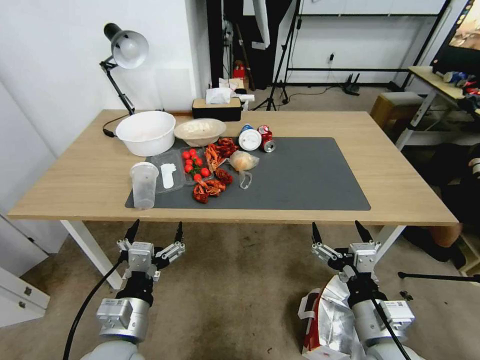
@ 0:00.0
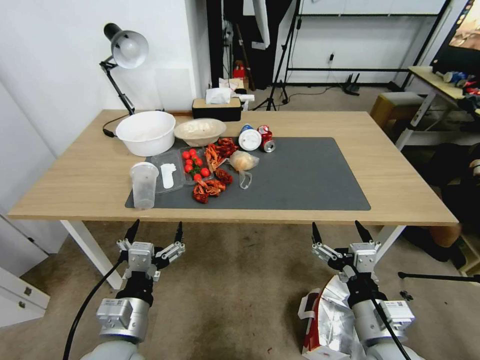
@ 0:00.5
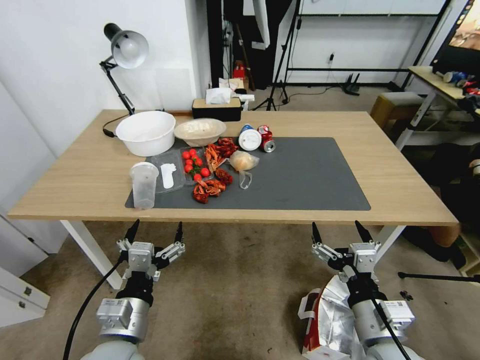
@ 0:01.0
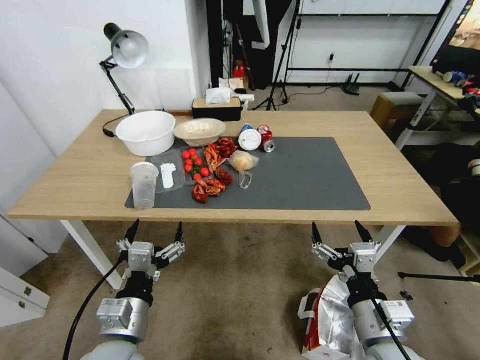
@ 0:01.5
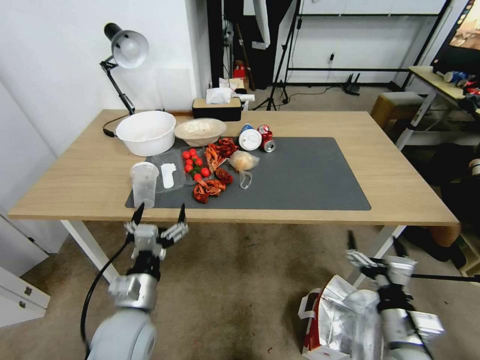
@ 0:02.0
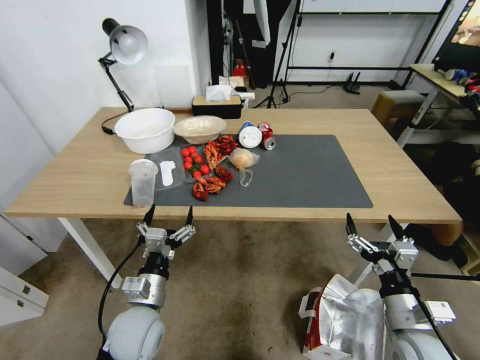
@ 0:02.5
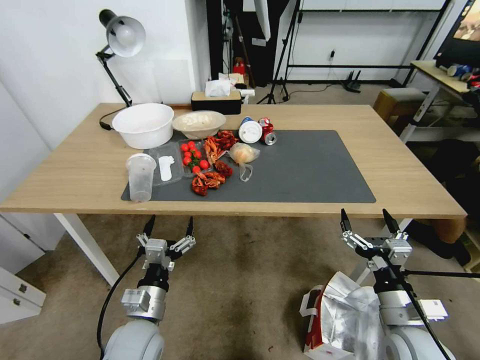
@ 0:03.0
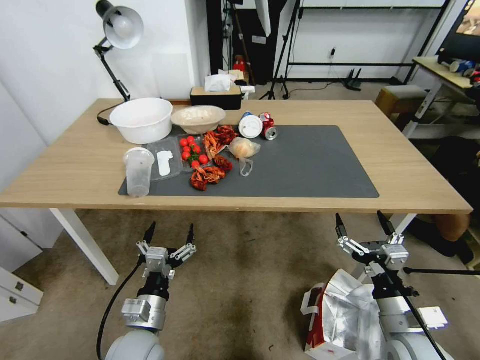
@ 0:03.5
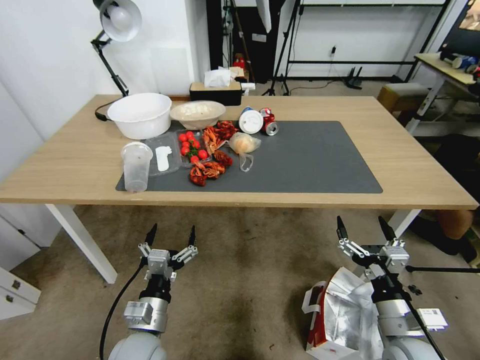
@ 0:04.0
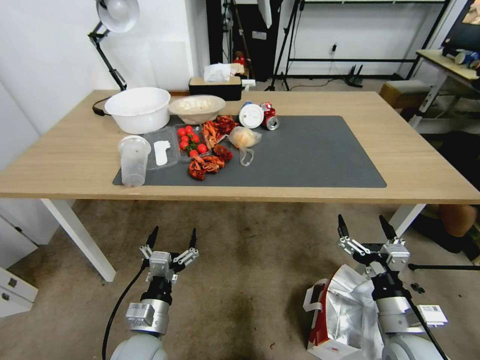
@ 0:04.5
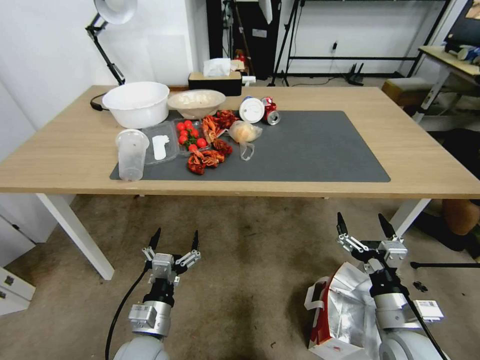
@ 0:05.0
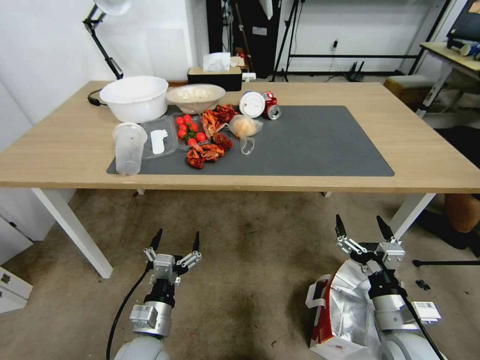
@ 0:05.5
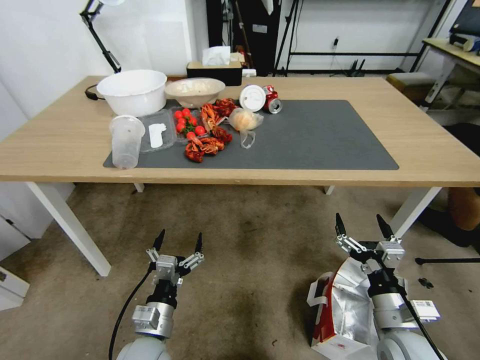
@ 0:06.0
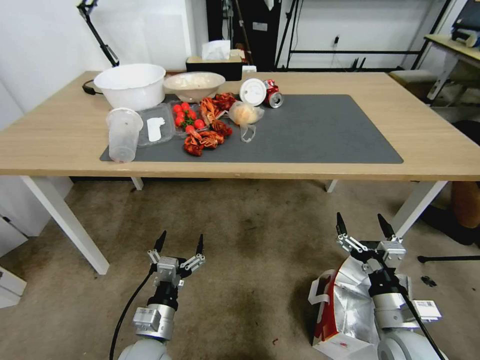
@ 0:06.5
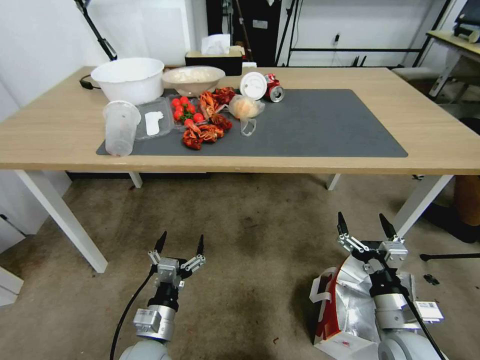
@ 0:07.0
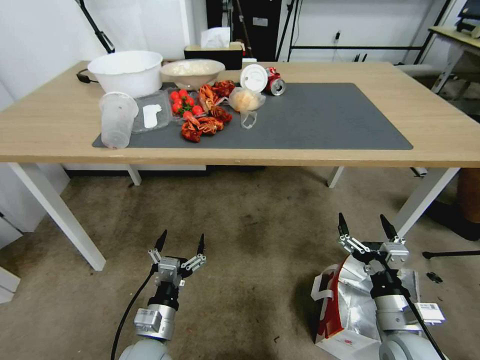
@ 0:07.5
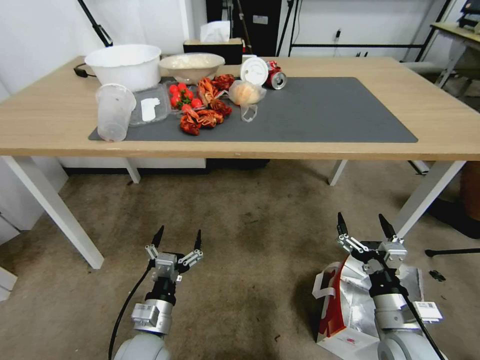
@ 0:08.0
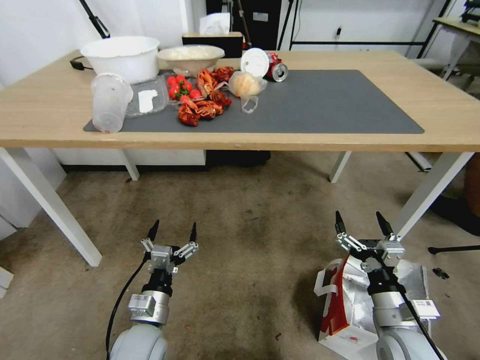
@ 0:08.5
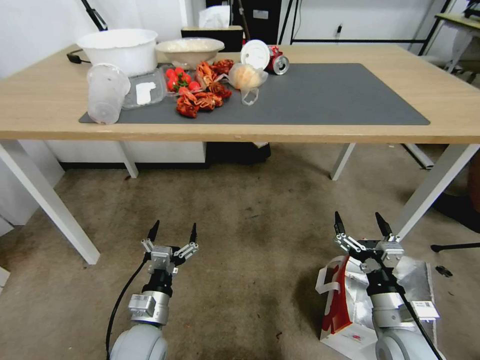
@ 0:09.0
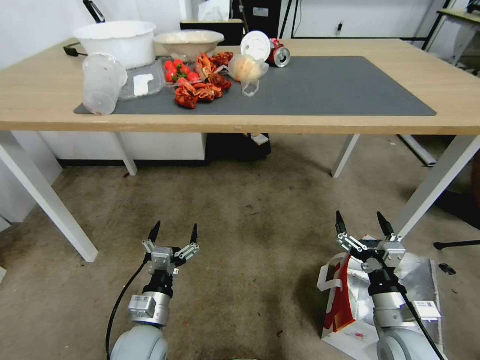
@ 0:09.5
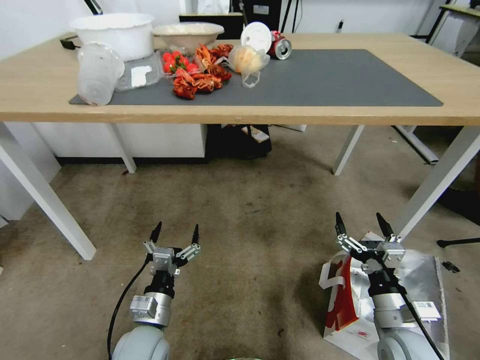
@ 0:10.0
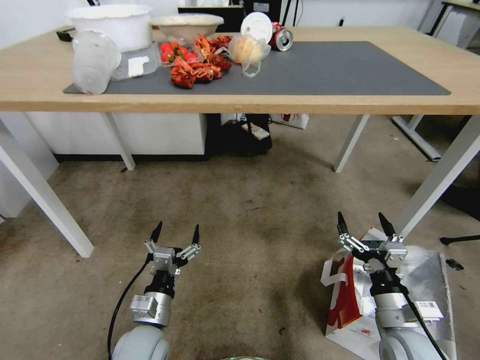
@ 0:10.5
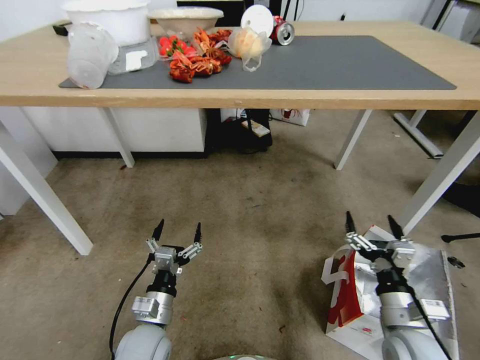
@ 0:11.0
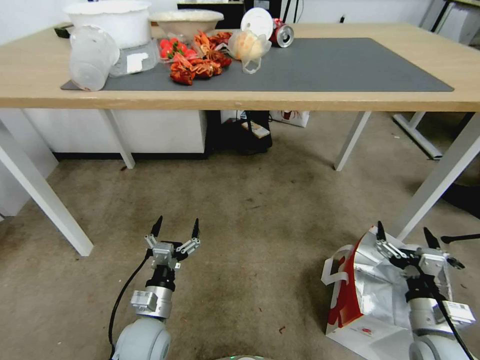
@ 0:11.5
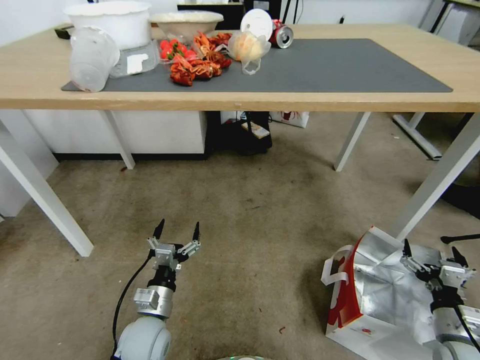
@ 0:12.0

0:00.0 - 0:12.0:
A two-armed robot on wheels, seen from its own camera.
Task of the whole recording: Pick up the food delivery bag from the floor and place it on the table.
0:02.0 - 0:04.0: The left gripper travels downward by roughly 5 cm.
0:10.0 - 0:12.0: The right gripper is displaced to the right by some 15 cm.

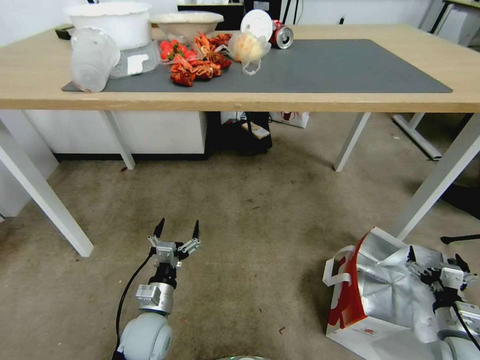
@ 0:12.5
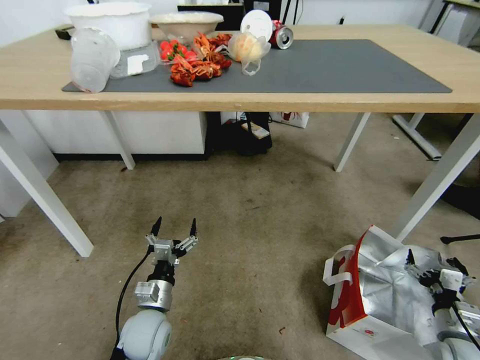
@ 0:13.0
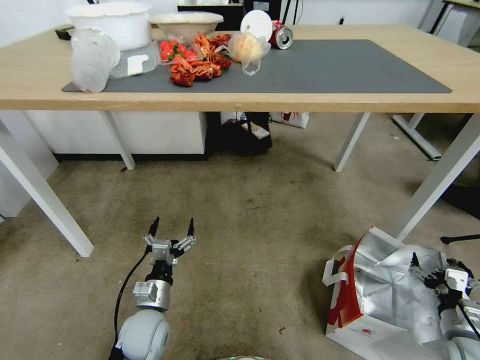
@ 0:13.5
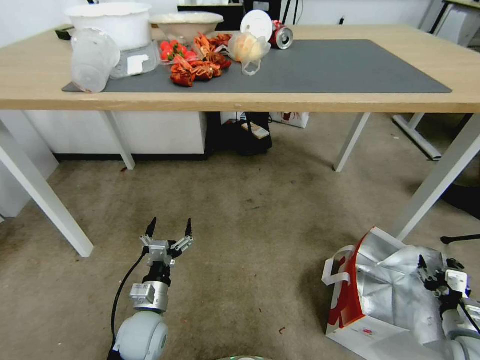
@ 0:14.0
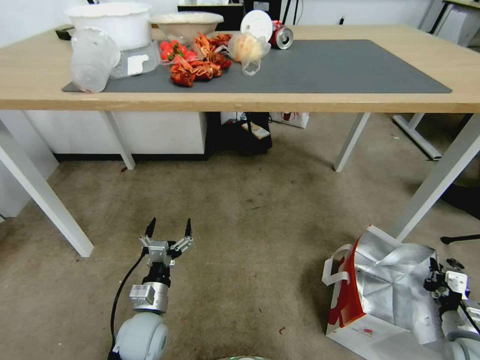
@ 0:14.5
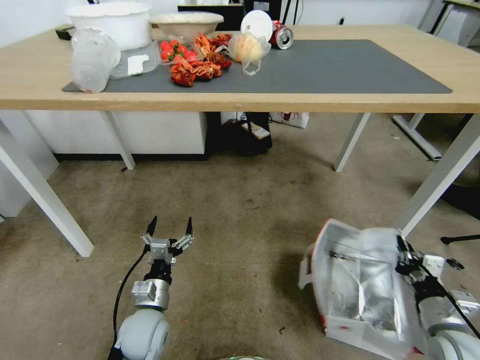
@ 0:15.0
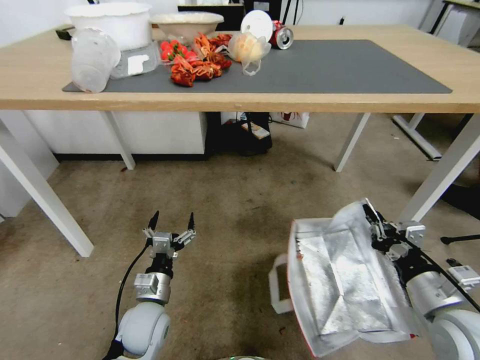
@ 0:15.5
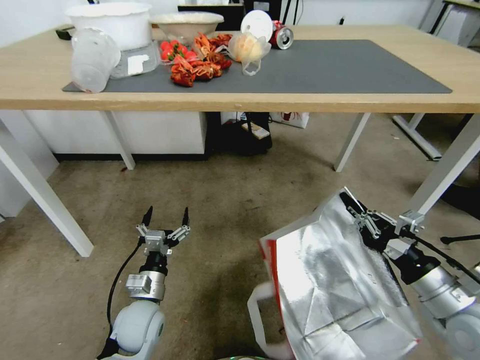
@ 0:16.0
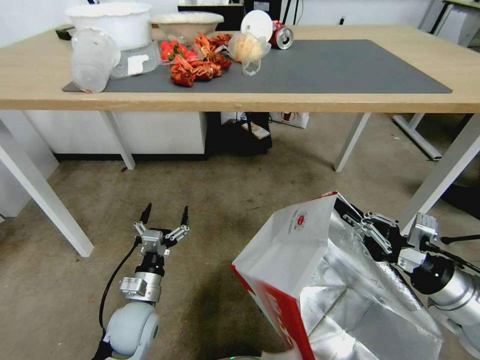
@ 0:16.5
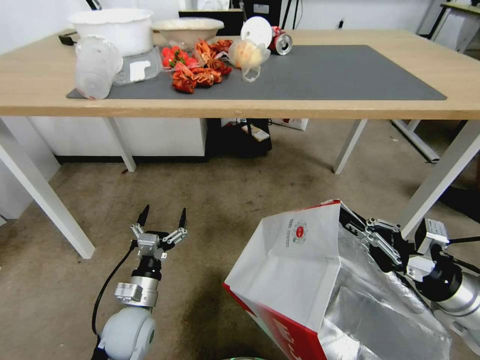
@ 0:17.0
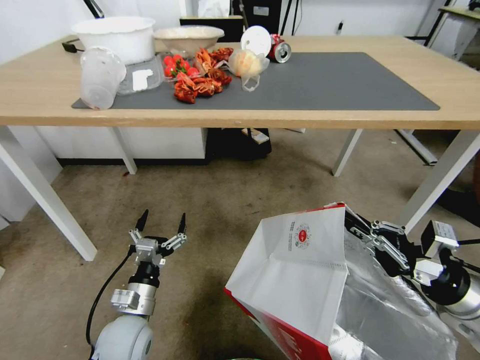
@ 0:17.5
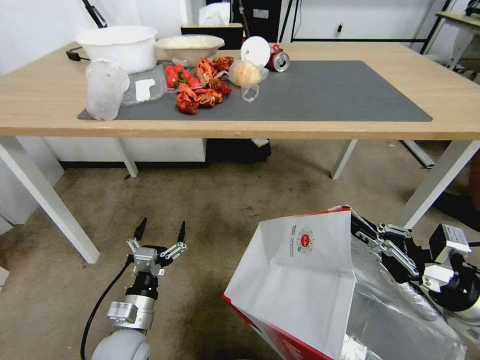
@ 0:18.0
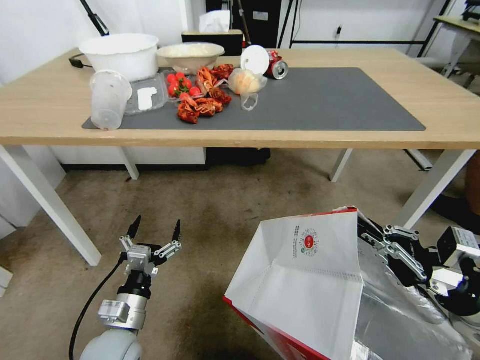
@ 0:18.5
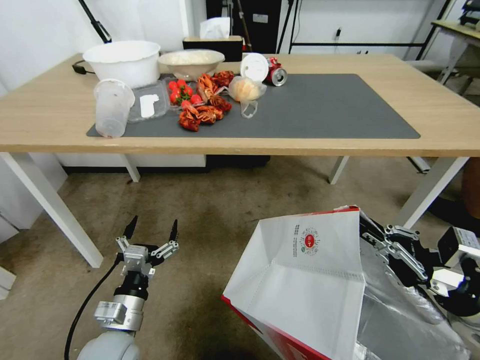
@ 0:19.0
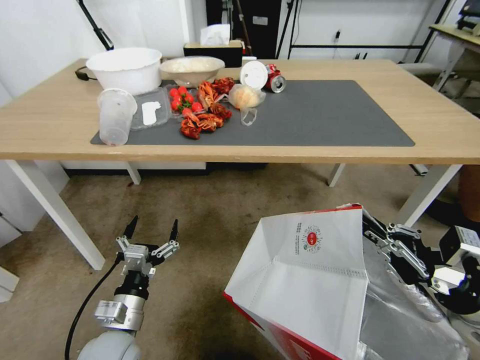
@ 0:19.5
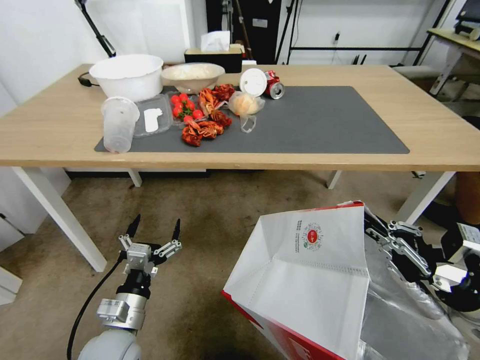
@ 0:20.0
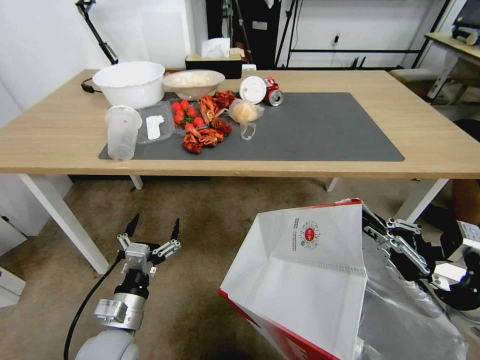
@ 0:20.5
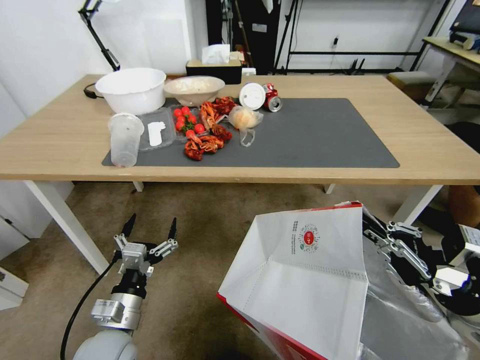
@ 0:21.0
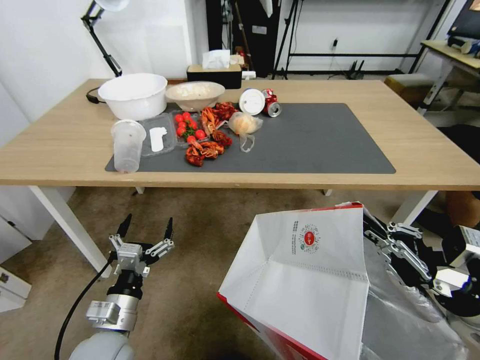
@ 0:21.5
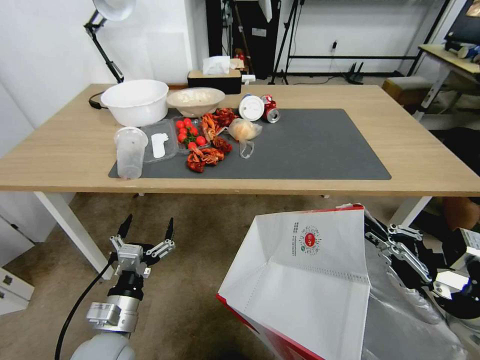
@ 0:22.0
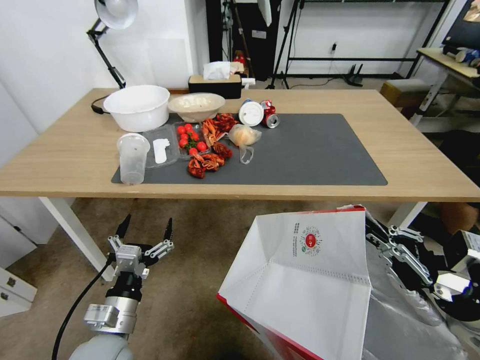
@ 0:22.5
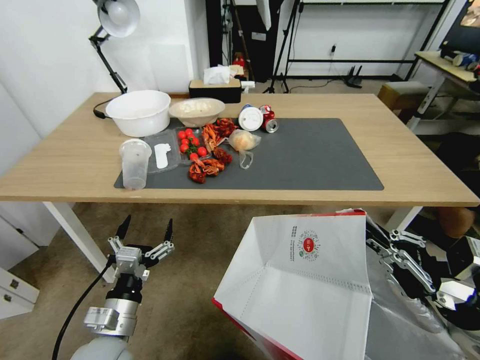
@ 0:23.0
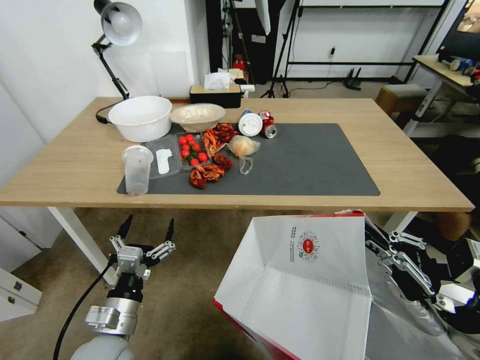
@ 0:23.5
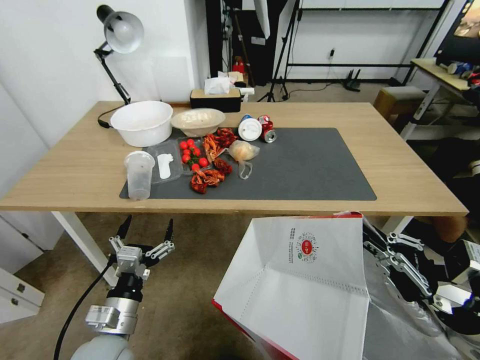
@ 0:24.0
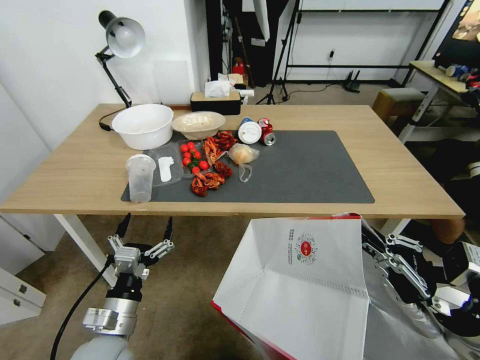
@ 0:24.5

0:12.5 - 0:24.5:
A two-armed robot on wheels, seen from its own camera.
Task of the whole recording: Pick up the food delivery bag from the floor and place it on the table.
0:12.5 - 0:14.5: The right gripper closes.
0:14.5 - 0:16.5: The right gripper goes about 20 cm upward and to the left.
0:16.5 - 0:18.5: The left gripper heads backward, covering about 5 cm.

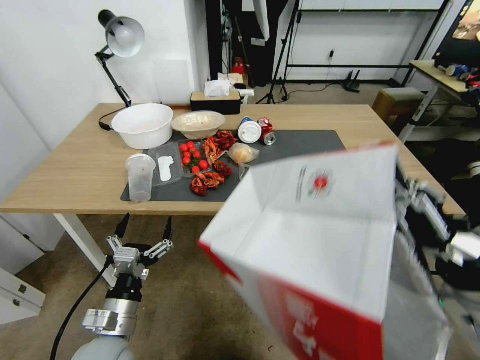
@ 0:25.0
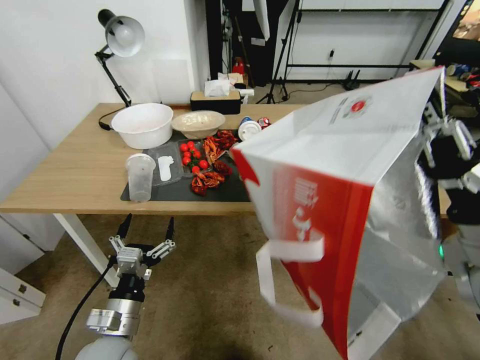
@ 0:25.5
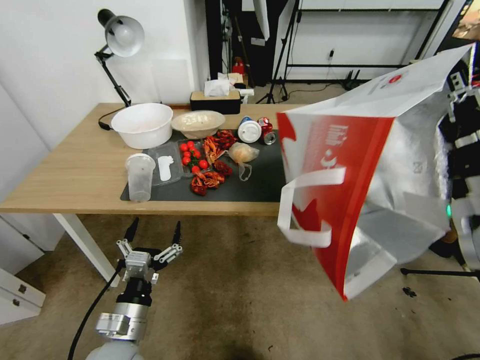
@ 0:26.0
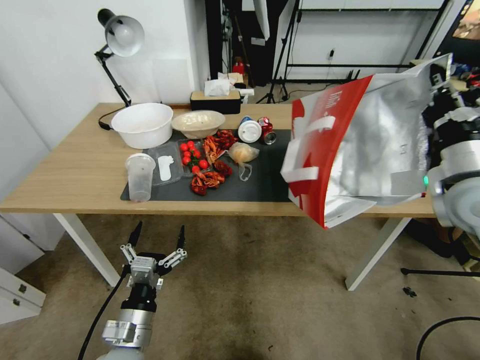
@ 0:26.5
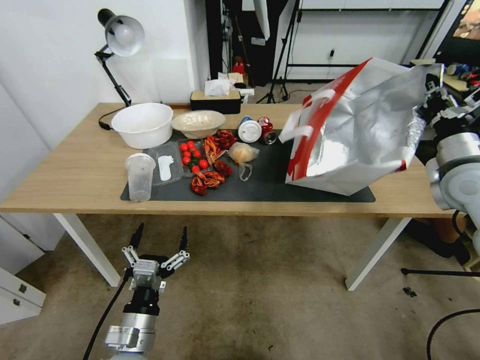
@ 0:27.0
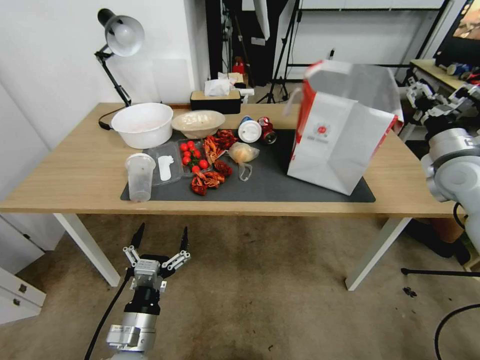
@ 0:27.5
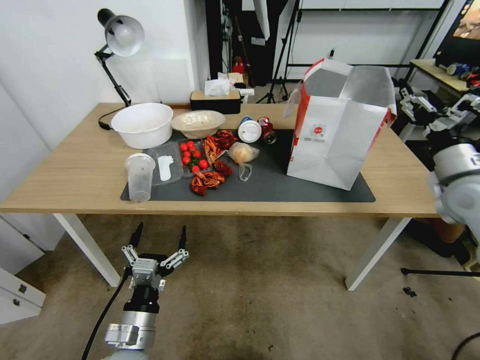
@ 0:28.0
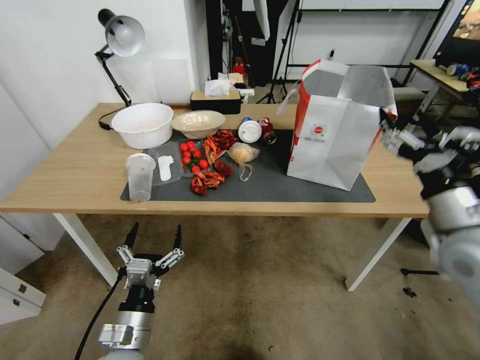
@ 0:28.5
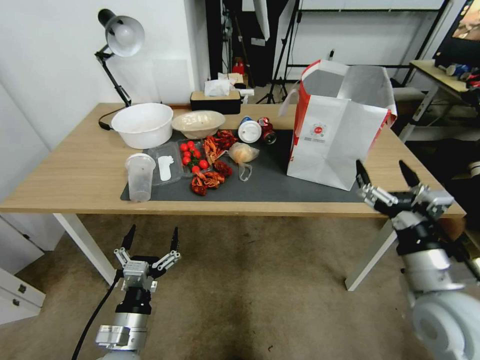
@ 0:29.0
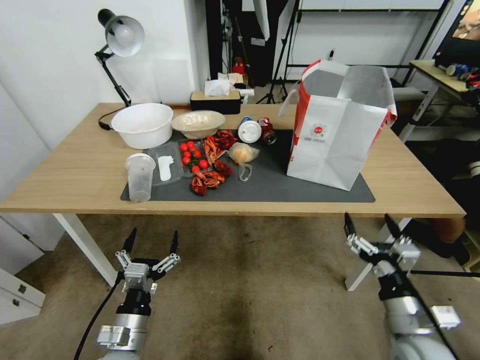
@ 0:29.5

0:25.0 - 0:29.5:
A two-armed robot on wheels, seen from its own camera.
Task of the whole recording: Pick up the food delivery bag from the floor and place it on the table.
0:25.0 - 0:27.0: The right gripper shifts roughly 20 cm forward.
0:27.0 - 0:29.5: The right gripper travels backward, downward and to the left by about 30 cm, and opens its fingers.
